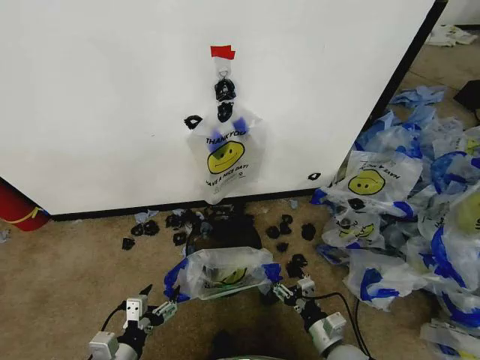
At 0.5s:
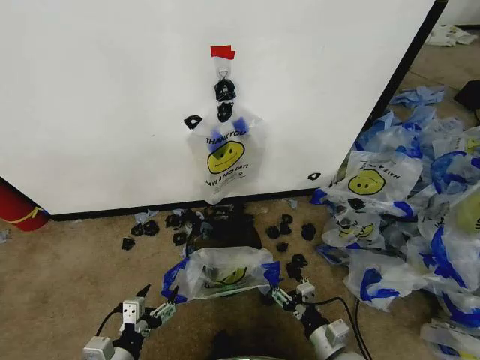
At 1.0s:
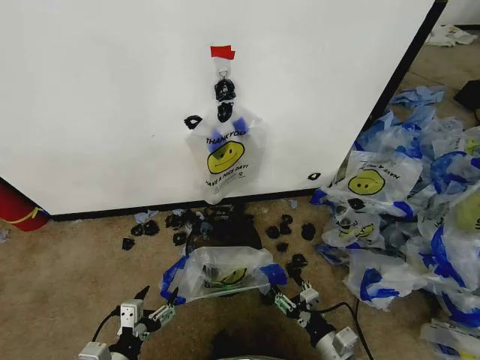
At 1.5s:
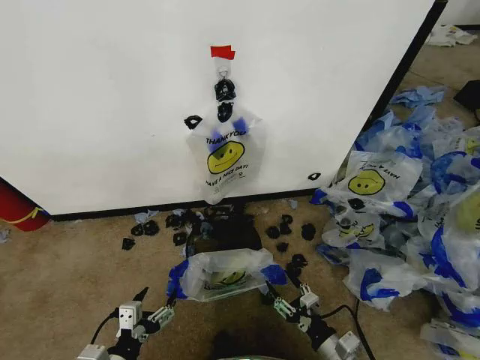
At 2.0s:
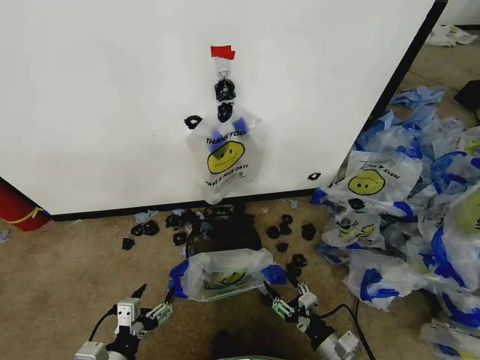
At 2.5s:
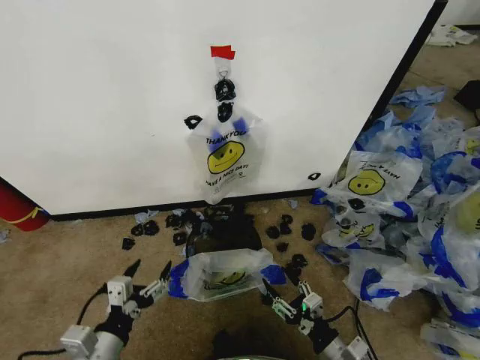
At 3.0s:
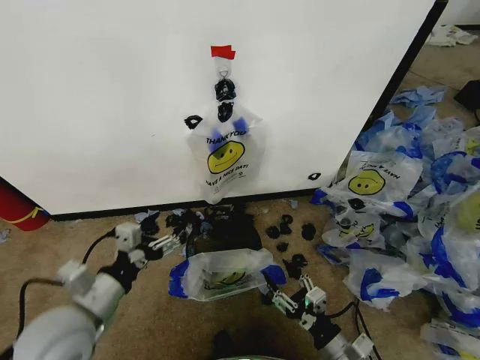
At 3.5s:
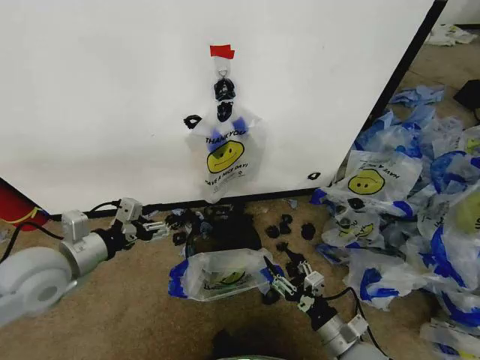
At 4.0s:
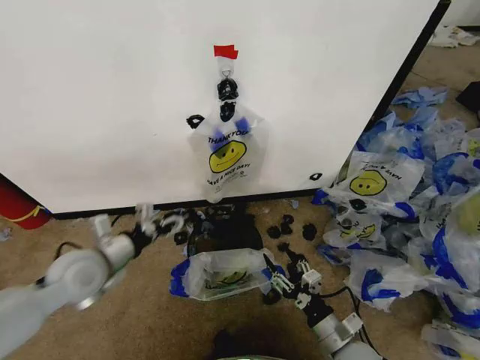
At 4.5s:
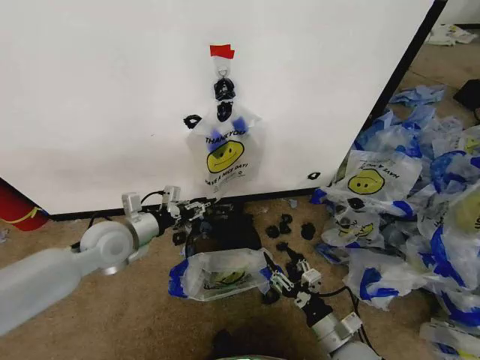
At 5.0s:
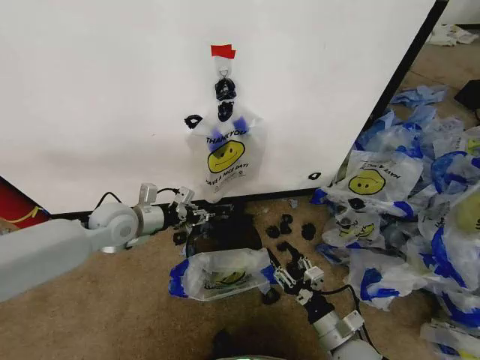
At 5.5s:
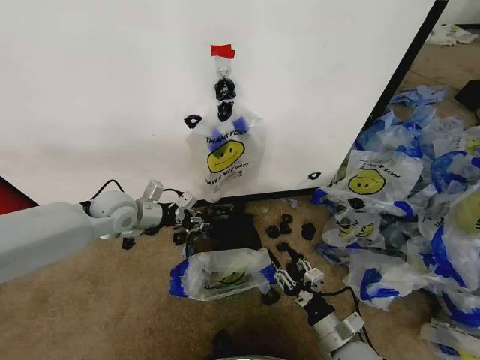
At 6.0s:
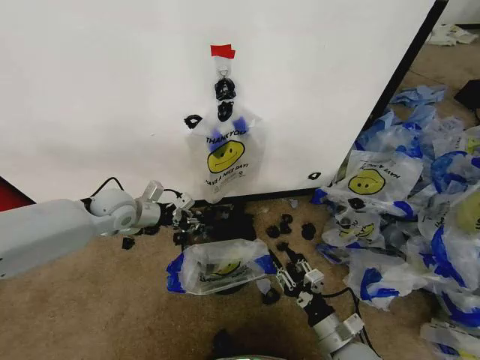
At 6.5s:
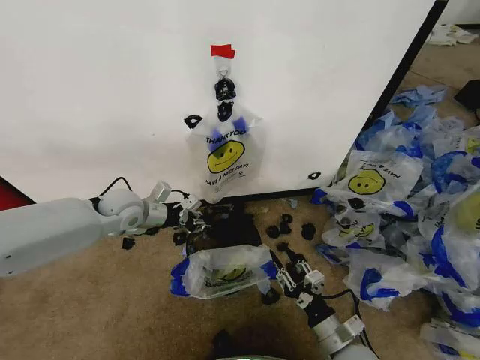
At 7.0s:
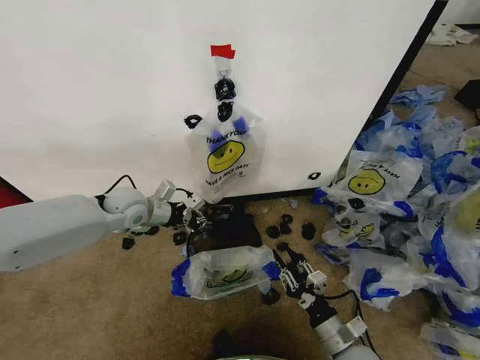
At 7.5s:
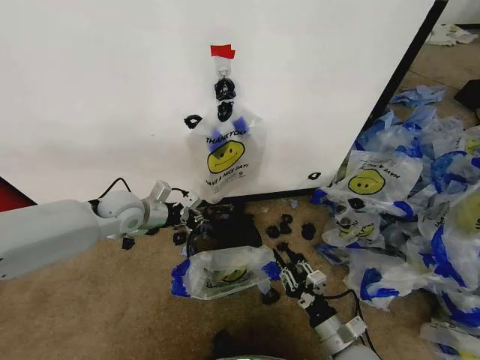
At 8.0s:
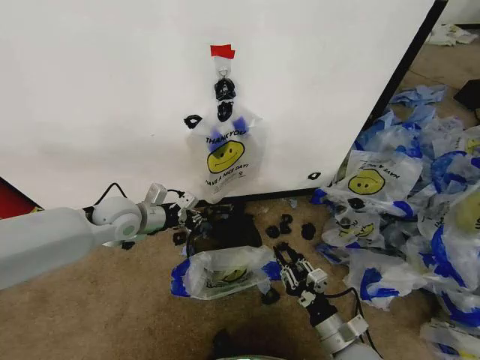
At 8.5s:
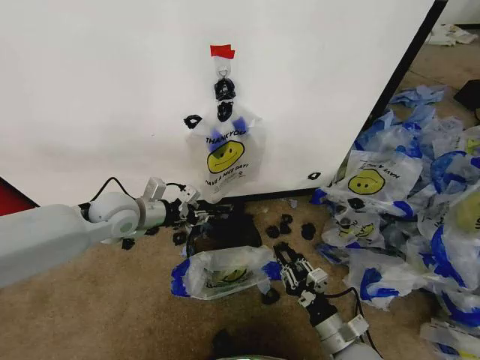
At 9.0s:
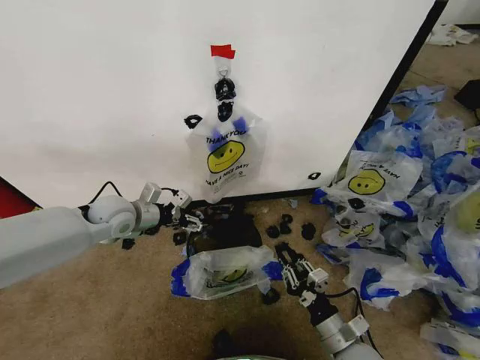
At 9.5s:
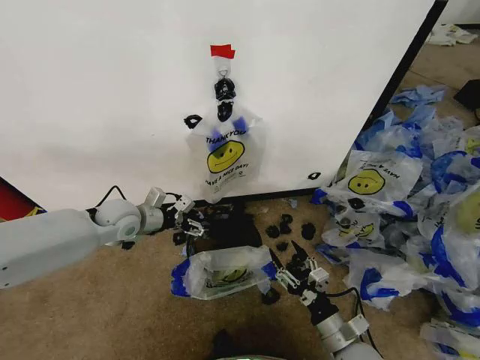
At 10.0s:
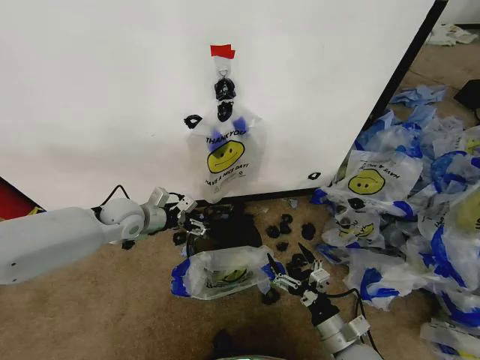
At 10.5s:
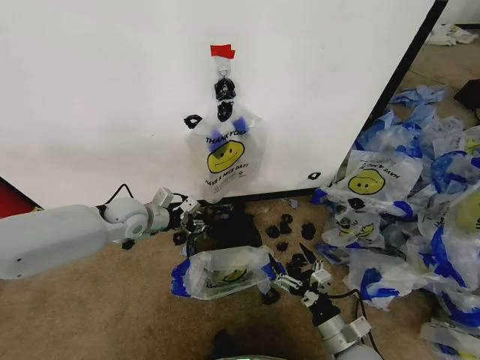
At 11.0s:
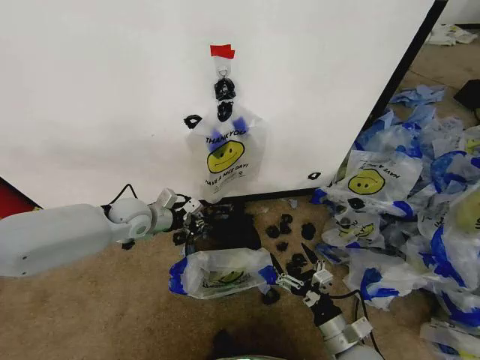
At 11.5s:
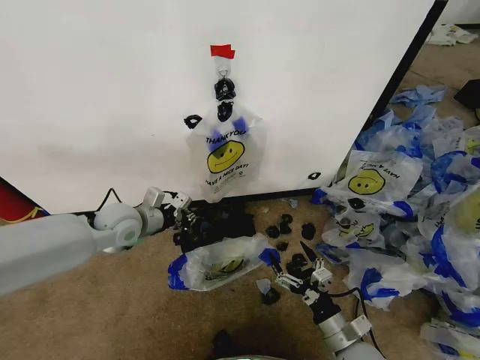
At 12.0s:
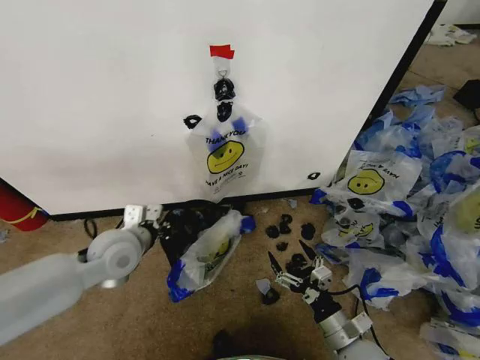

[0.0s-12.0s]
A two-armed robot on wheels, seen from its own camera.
Task of the whole recording: Pick up the garbage bag from the wall and place it over the trash bin.
0.0s to 2.0s: The grippers stay close to where they were, moving slightly.
2.0s to 4.0s: The left gripper is displaced forward and upward by approximately 20 cm.
4.0s to 6.0s: The left gripper heads forward, covering some 15 cm, and closes.
6.0s to 8.0s: The grippers move only a little.
8.0s to 10.0s: The right gripper opens up; the left gripper opens its fingers.
10.0s to 12.0s: The left gripper heads backward, covering some 10 cm, and closes up.

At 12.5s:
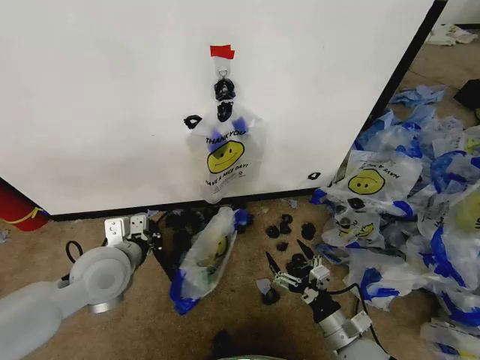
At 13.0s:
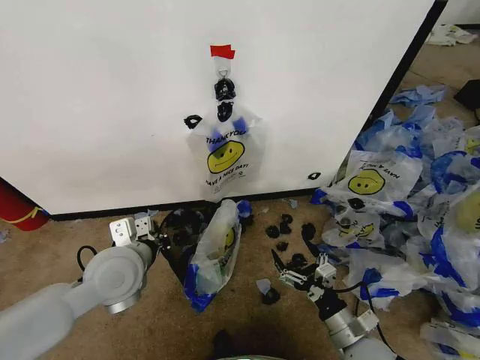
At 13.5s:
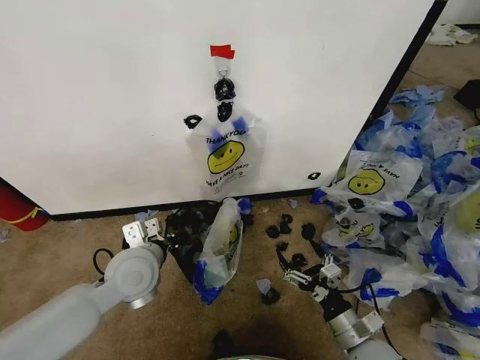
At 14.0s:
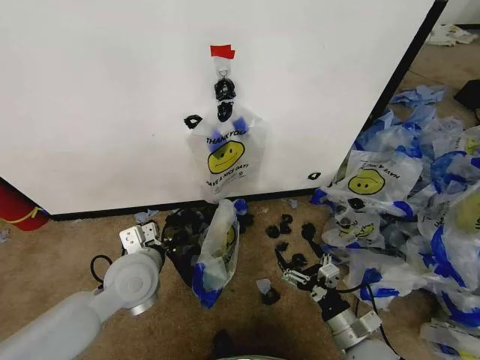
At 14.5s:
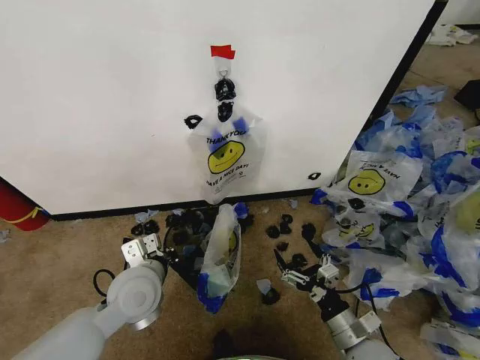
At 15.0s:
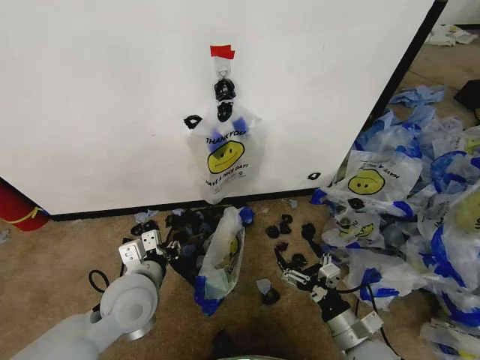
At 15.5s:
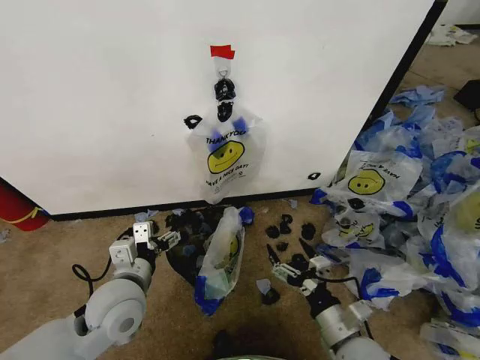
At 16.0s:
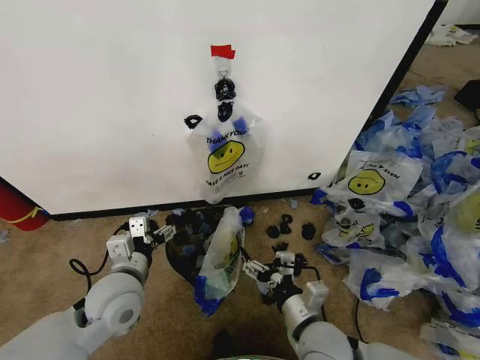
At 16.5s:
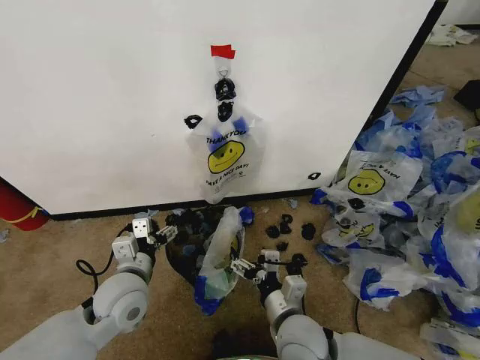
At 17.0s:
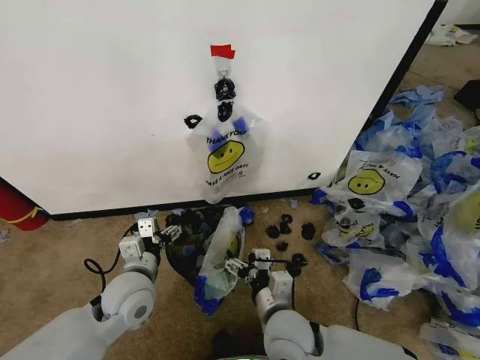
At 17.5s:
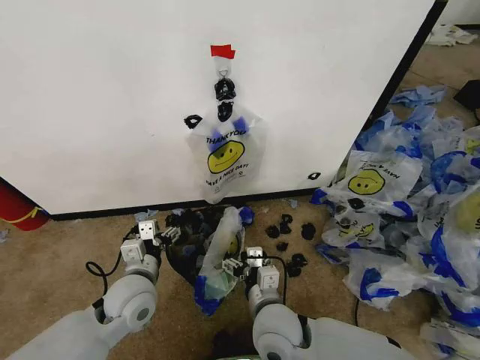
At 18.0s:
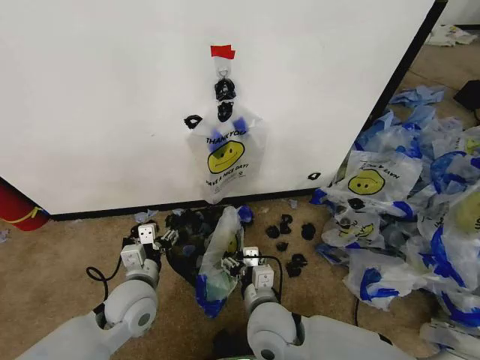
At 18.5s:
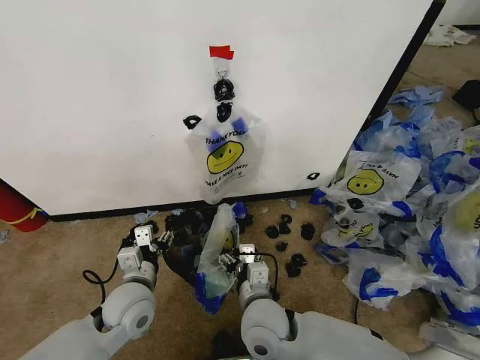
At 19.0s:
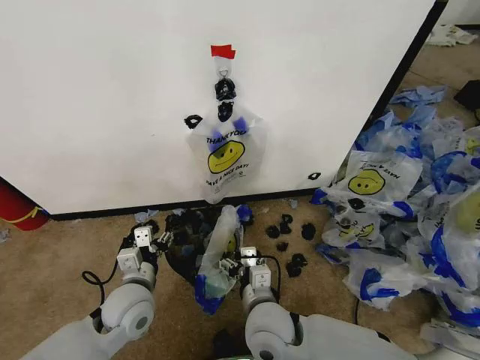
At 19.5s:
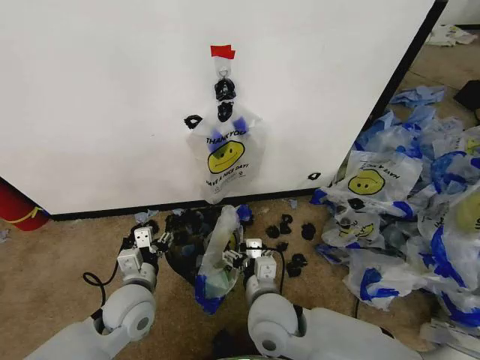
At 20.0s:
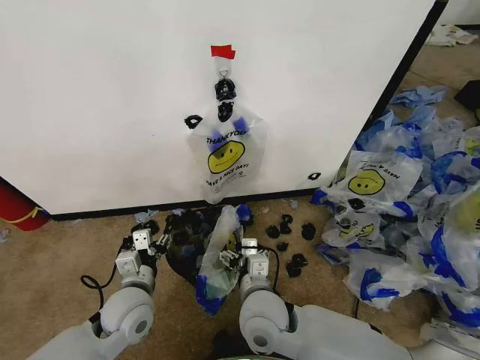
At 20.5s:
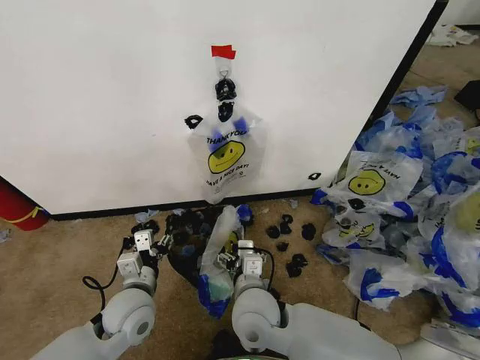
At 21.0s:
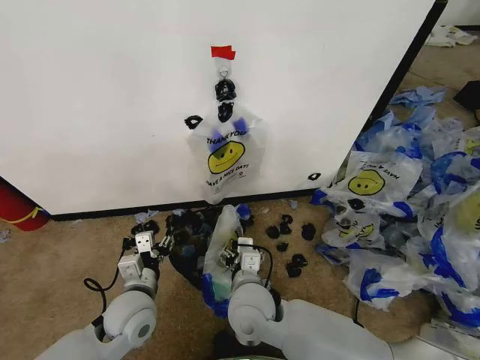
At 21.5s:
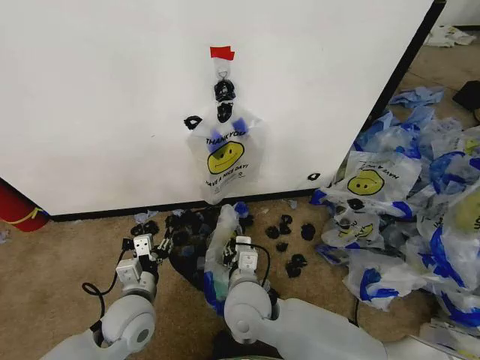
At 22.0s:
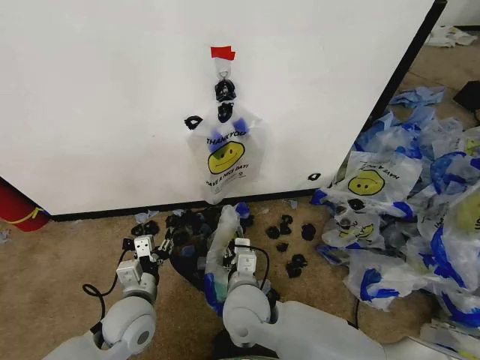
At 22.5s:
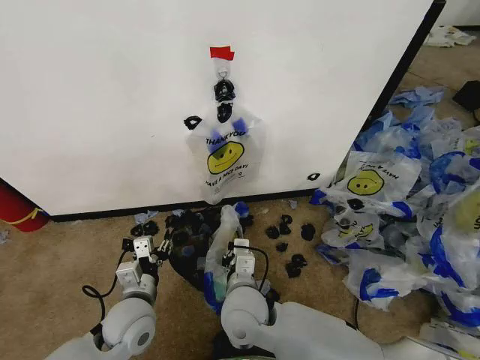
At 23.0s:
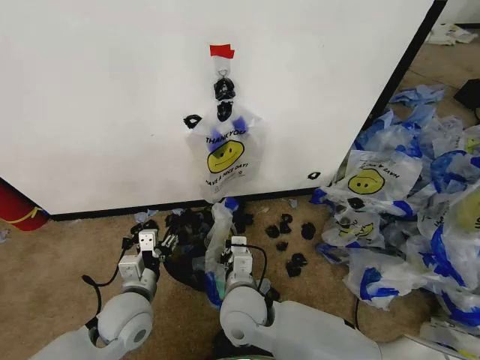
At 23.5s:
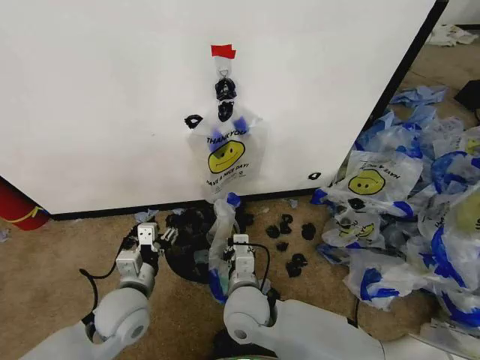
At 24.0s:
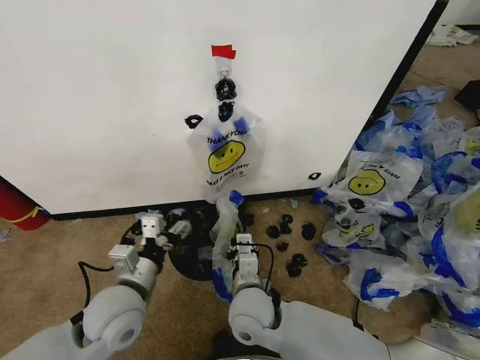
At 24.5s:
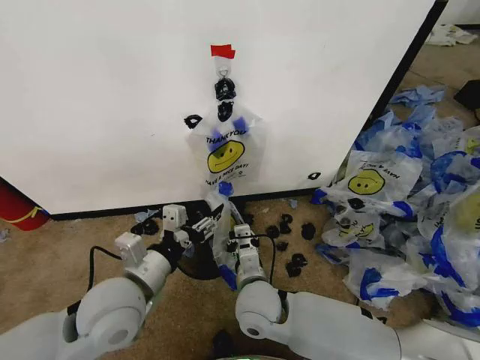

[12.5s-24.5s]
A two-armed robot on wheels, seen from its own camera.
Task of the whole recording: Pick up the garbage bag from the wall and place it over the trash bin.
12.5s to 14.5s: The left gripper moves some 5 cm.
14.5s to 16.5s: The left gripper opens; the right gripper shifts approximately 15 cm to the left.
16.5s to 18.5s: The right gripper moves to the left, about 5 cm.
18.5s to 20.5s: The grippers make only small movements.
20.5s to 22.5s: The right gripper closes.
22.5s to 24.5s: The left gripper heads upward, covering about 15 cm.

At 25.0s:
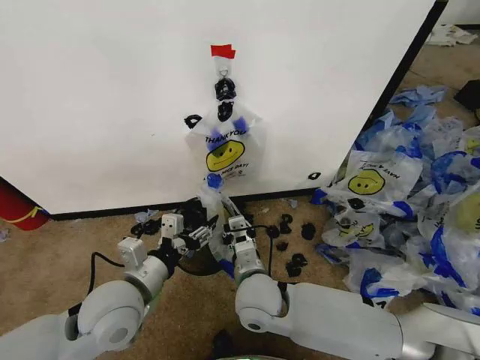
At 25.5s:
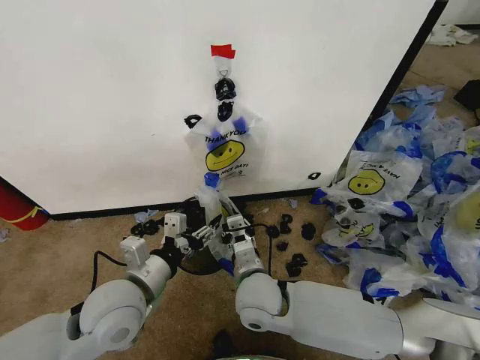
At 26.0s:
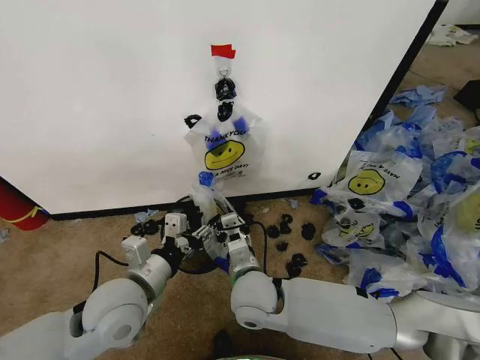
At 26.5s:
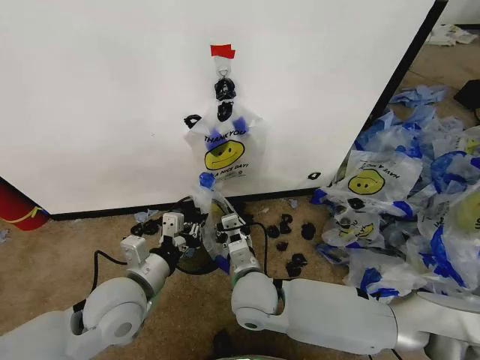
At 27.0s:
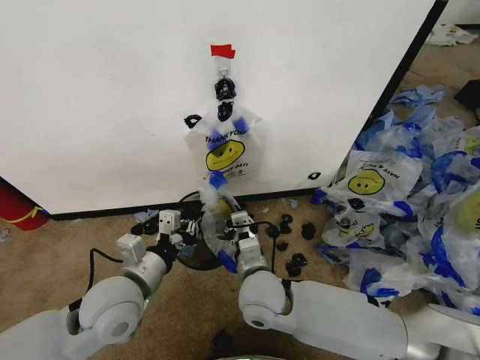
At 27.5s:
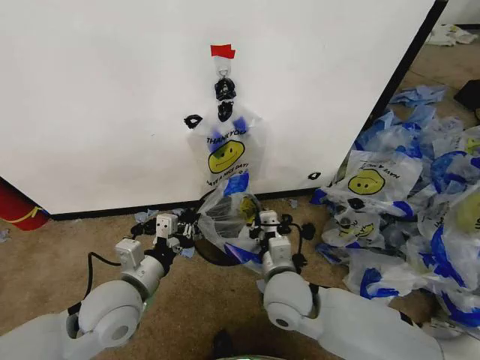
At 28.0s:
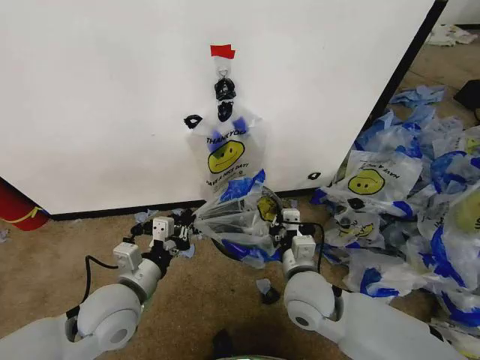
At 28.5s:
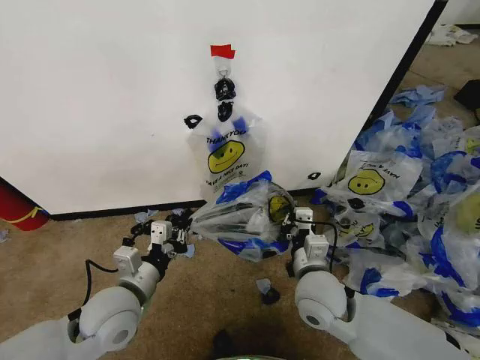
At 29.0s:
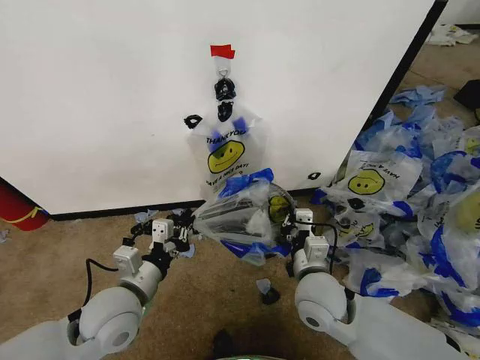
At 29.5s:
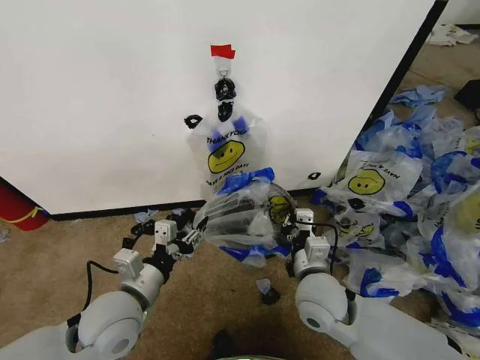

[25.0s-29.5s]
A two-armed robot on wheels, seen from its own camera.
Task of the whole recording: Pick up the garbage bag from the wall and place it over the trash bin.
25.0s to 27.0s: The left gripper closes.
27.0s to 29.5s: The left gripper opens its fingers. The right gripper heads to the right, covering approximately 10 cm.
